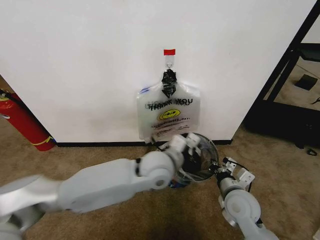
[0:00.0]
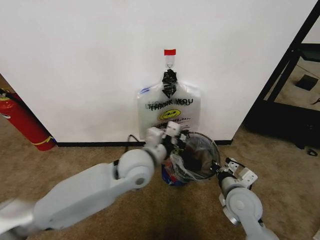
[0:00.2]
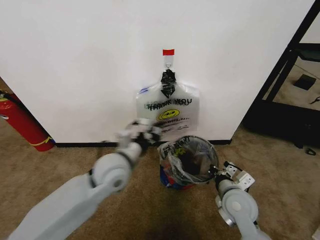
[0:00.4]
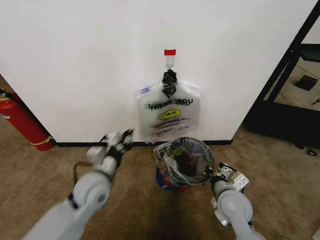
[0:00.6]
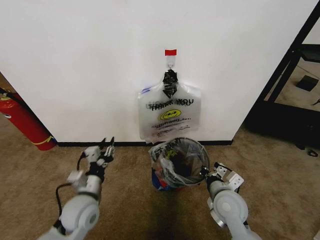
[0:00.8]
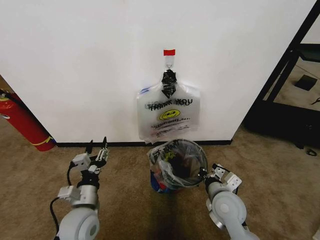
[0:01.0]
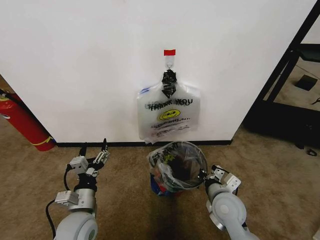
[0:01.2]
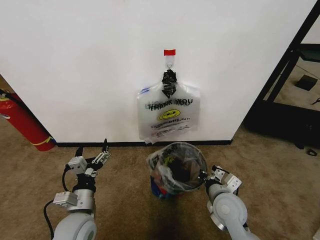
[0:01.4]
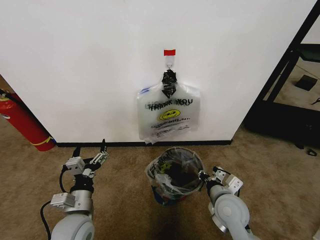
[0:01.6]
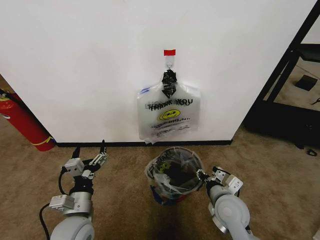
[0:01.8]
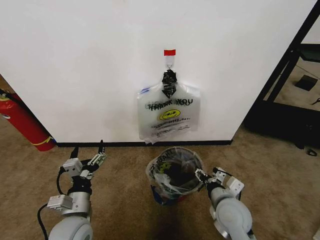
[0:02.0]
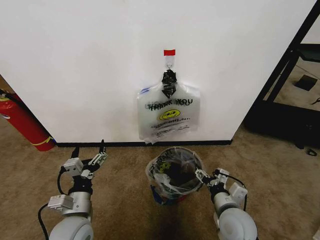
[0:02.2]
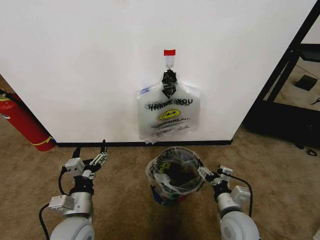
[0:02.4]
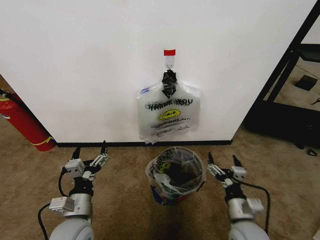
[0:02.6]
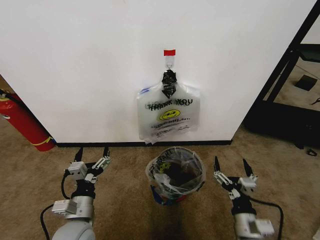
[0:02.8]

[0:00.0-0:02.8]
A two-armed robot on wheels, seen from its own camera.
Task of the whole recording: Pick up the garbage bag from the wall and place it over the trash bin.
0:00.0 to 0:01.4: The left gripper travels to the left, backward and downward by some 30 cm, and opens its fingers.
0:01.4 to 0:02.8: The right gripper travels backward by roughly 10 cm, and opens its fingers.

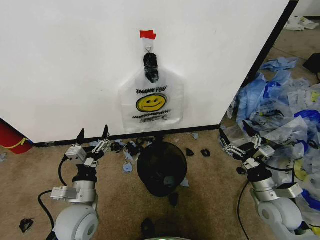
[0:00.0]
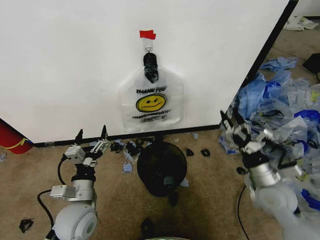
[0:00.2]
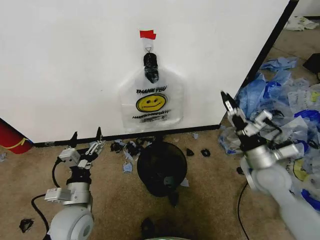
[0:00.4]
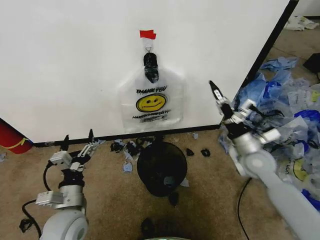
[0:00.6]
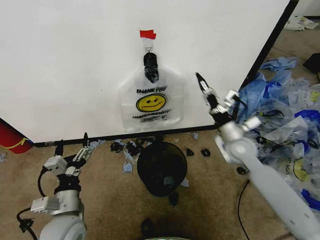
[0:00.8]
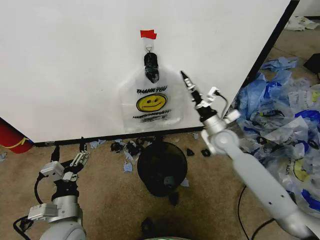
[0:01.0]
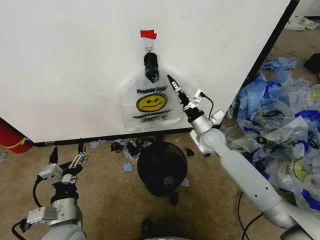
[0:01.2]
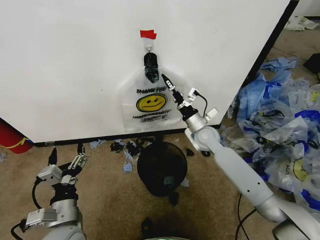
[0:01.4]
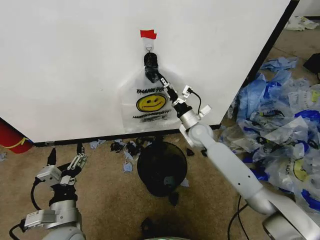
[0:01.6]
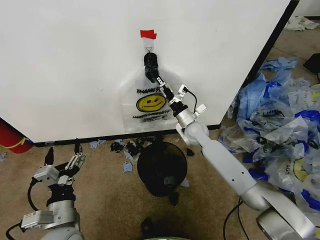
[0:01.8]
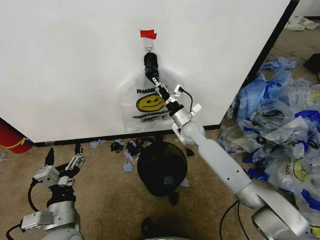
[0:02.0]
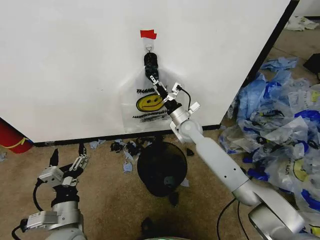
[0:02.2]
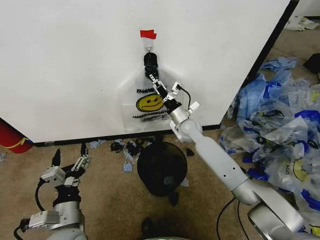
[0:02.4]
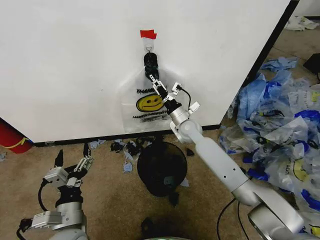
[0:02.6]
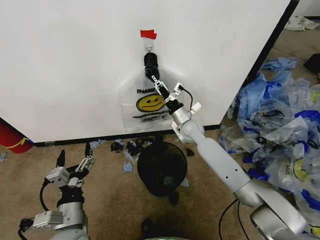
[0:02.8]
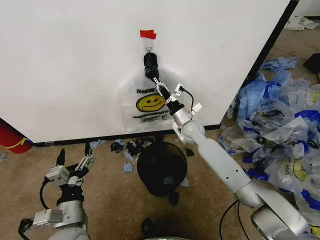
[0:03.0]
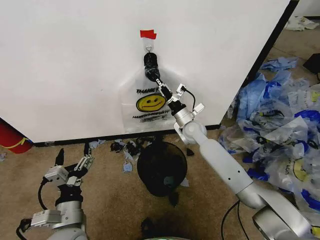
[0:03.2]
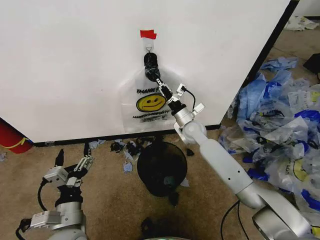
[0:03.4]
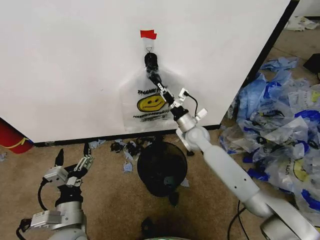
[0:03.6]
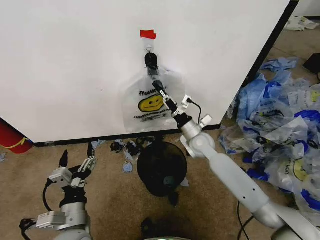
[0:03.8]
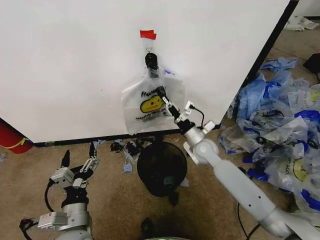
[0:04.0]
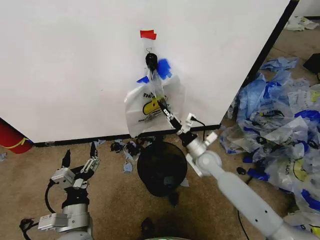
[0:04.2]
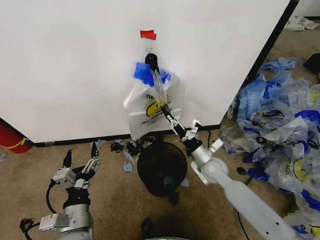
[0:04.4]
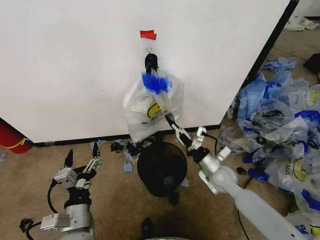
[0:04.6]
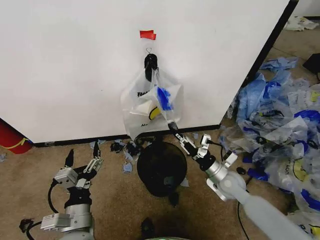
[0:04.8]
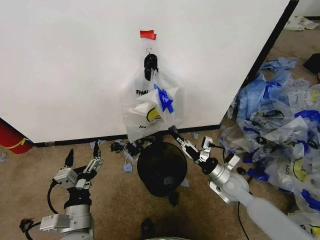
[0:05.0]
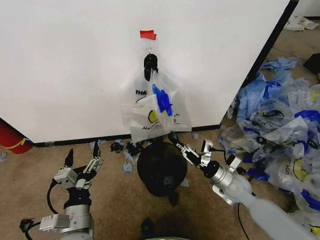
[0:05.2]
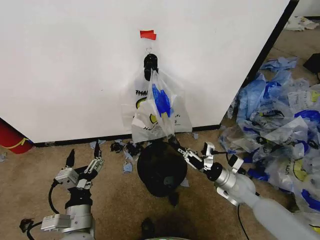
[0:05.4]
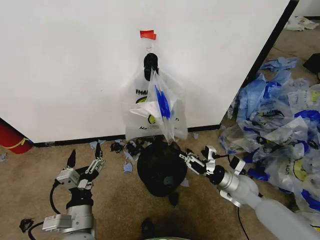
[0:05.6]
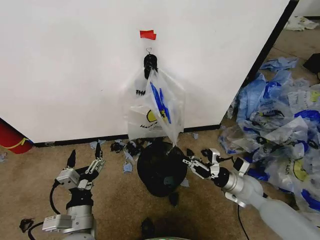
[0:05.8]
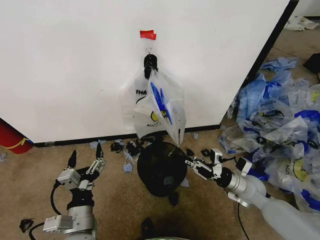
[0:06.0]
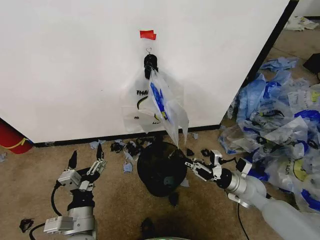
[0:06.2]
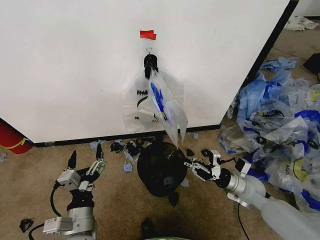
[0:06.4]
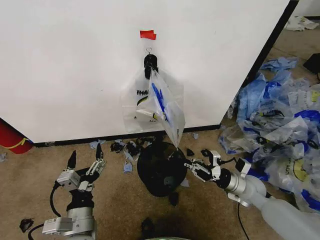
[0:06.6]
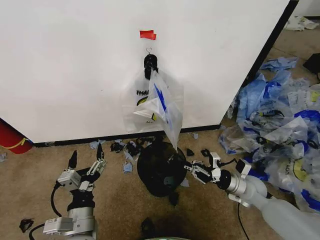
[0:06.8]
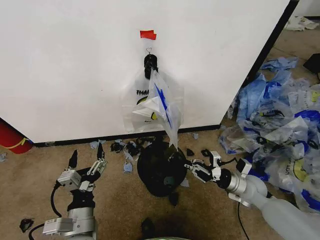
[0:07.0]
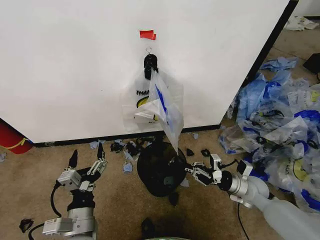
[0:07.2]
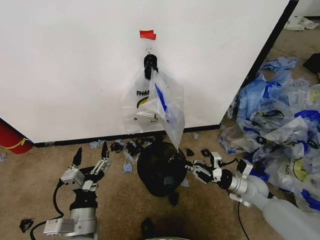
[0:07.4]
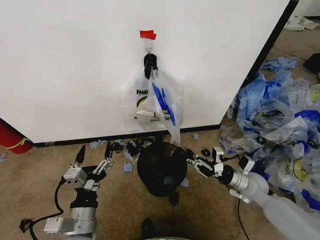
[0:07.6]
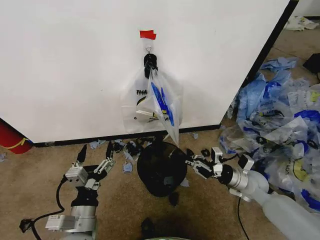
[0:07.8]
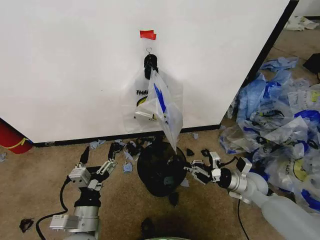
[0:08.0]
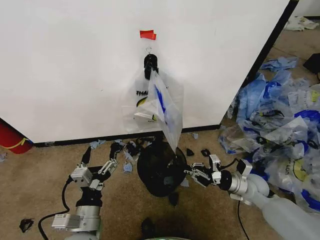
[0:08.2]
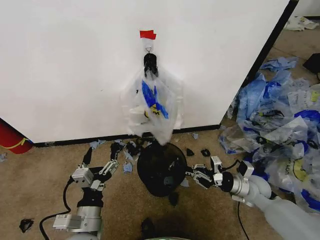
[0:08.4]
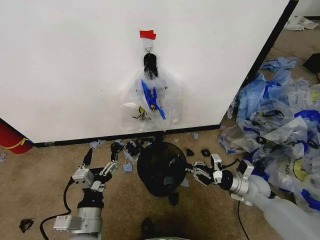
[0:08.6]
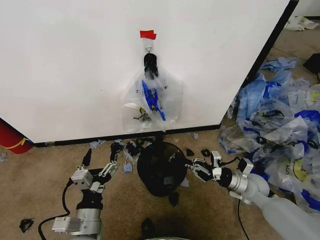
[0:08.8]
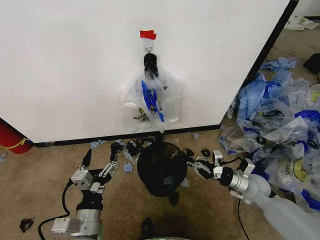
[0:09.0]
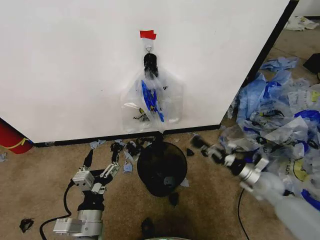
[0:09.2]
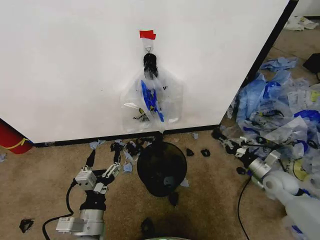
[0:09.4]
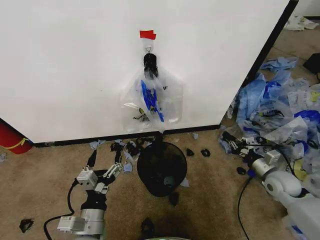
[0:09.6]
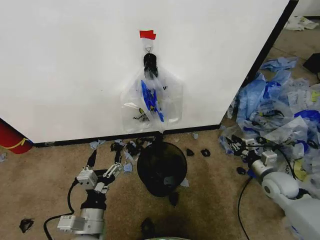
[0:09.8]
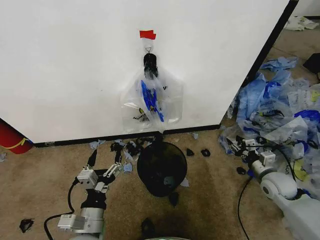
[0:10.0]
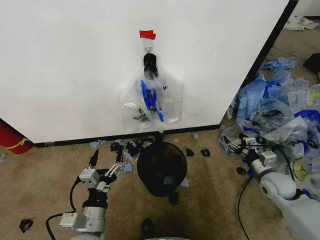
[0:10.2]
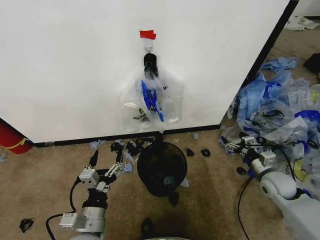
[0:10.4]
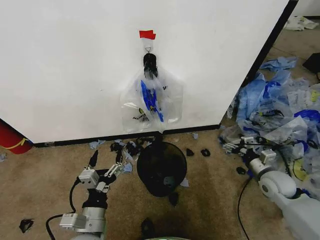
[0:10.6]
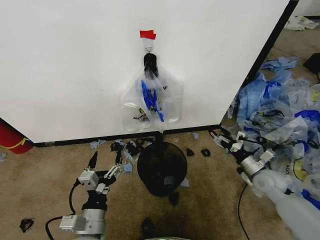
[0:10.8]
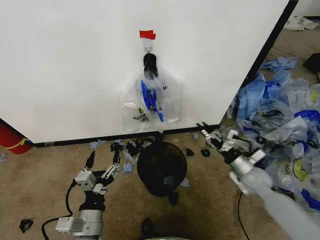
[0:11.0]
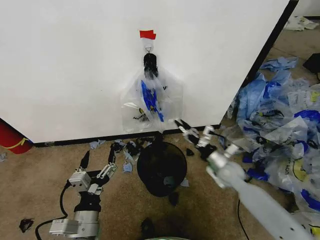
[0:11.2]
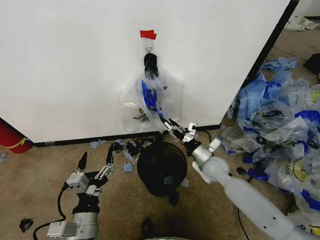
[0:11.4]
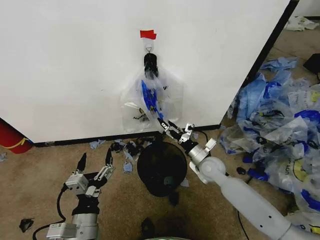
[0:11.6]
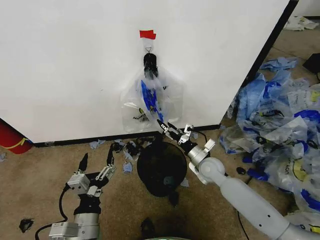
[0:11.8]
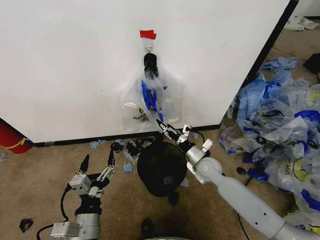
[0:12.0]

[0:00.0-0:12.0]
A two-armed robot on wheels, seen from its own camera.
Task of the whole recording: Pick up the garbage bag from the wall and place it over the trash bin.
0:01.6 to 0:03.0: The right gripper closes up.
0:03.0 to 0:04.4: The right gripper shifts about 15 cm backward, to the right and downward.
0:04.4 to 0:06.0: The right gripper heads to the right and backward, covering about 15 cm.
0:06.0 to 0:09.0: The grippers stay close to where they were, moving slightly.
0:09.0 to 0:10.4: The right gripper heads to the right, covering approximately 5 cm, and opens its fingers.
0:10.4 to 0:12.0: The right gripper heads to the left, covering about 20 cm.

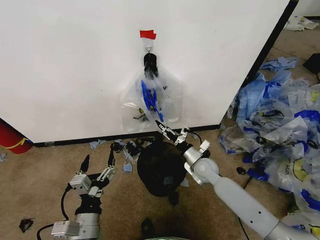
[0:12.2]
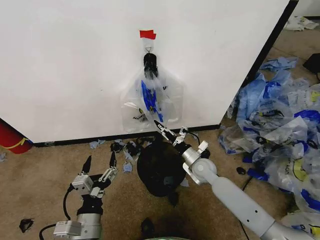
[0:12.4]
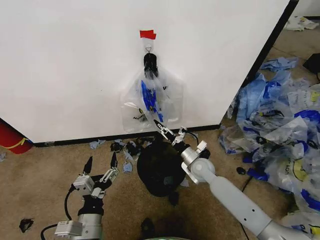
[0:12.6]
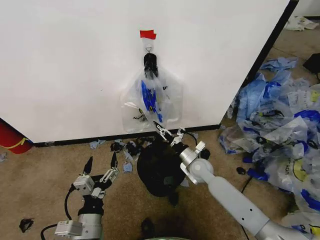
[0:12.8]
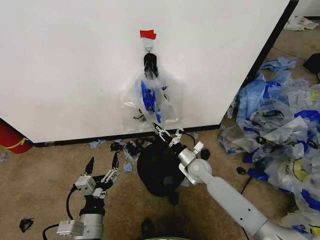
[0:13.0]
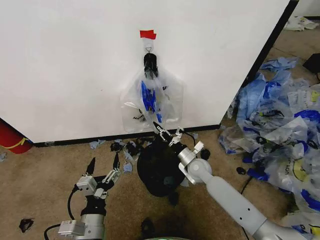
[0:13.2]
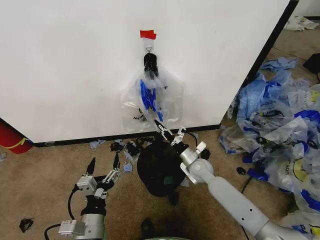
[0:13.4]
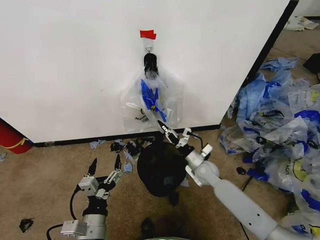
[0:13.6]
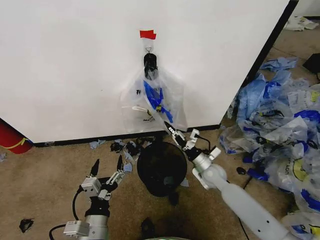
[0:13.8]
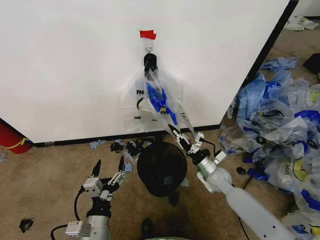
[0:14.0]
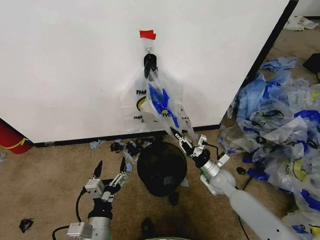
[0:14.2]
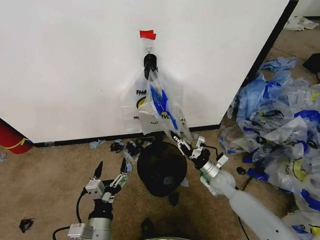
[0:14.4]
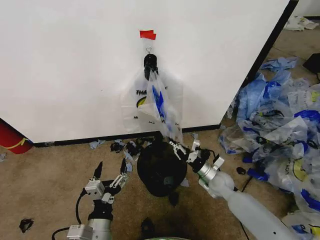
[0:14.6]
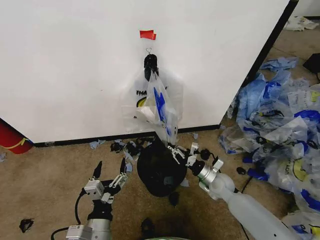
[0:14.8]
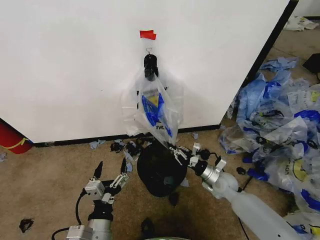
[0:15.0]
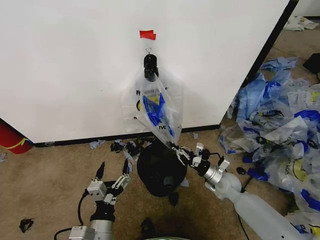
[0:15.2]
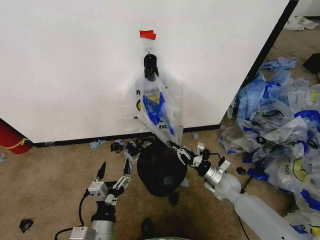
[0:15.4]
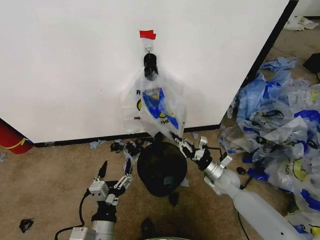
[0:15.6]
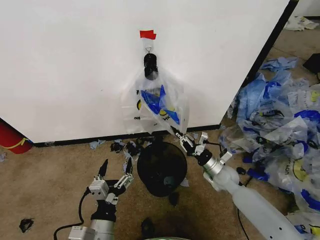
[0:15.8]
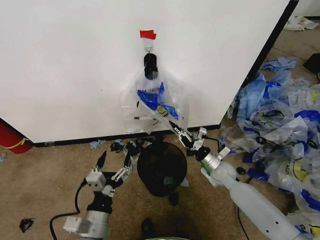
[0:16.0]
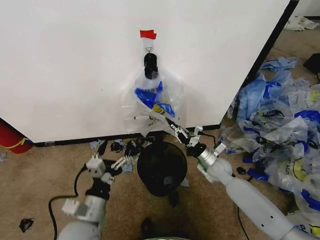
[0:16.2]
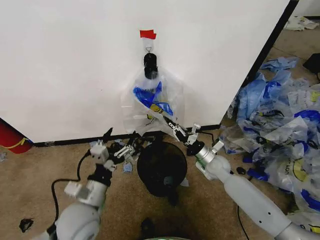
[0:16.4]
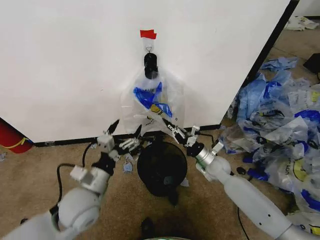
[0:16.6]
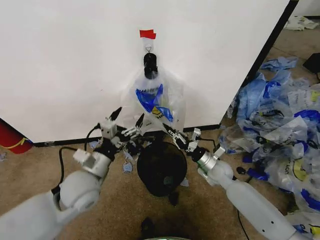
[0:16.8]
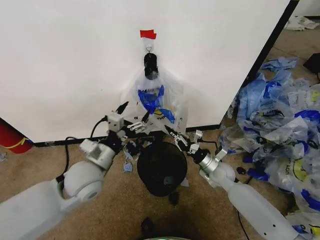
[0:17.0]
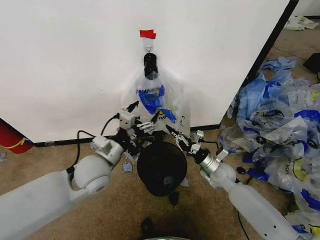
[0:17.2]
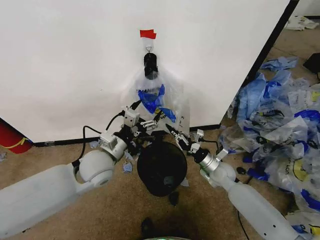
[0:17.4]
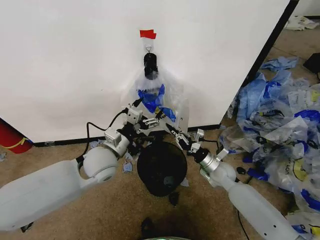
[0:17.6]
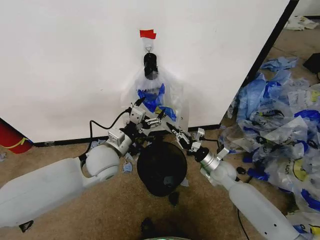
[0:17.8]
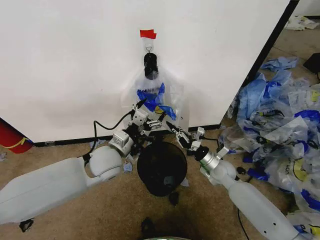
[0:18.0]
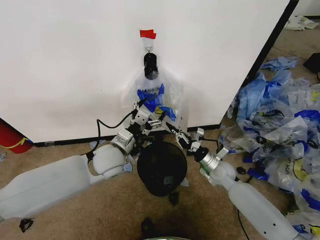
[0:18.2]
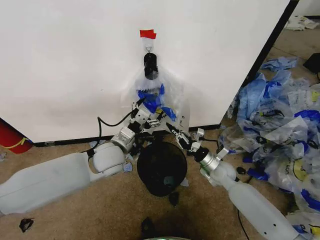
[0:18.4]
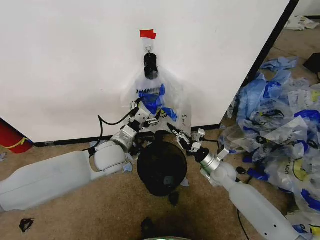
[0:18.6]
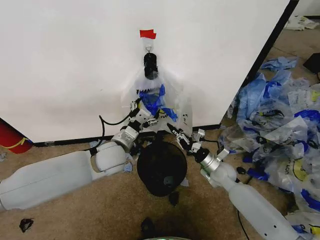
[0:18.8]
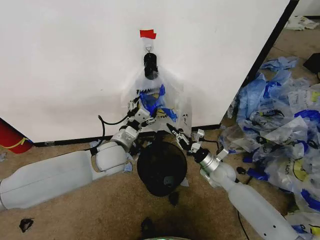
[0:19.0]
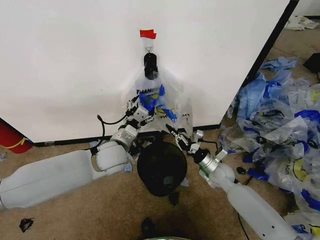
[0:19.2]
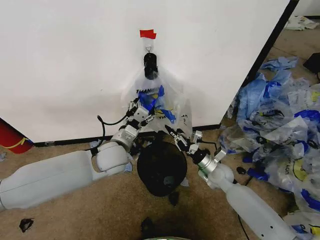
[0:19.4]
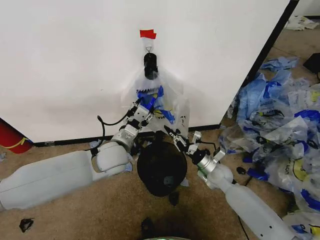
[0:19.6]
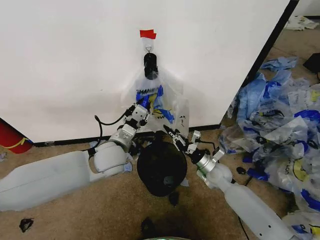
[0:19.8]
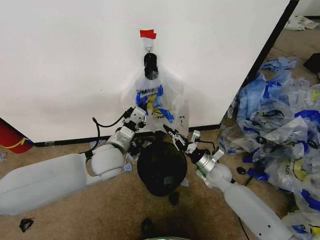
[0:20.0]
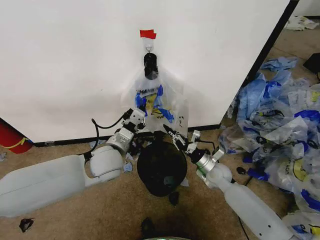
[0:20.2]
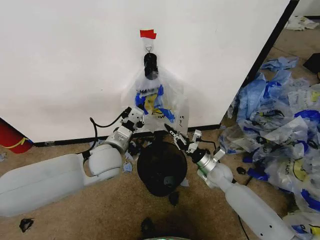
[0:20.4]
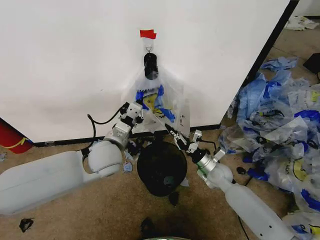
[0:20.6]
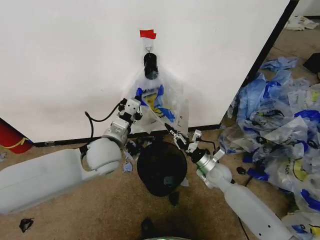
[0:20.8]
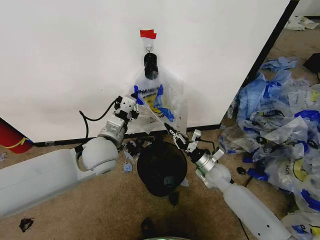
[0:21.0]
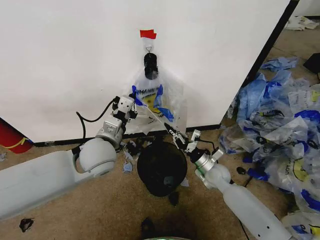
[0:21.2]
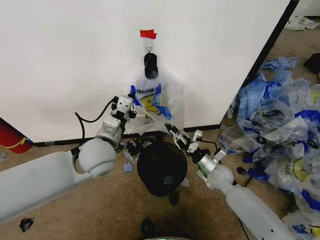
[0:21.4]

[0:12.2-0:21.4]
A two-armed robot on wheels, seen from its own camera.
Task of the whole recording: Pick up the garbage bag from the wall and place it over the trash bin.
0:12.2 to 0:13.8: The right gripper closes up.
0:13.8 to 0:15.2: The right gripper changes place by some 5 cm.
0:15.2 to 0:16.8: The left gripper moves forward and upward, about 20 cm. The right gripper changes place by about 5 cm.
0:16.8 to 0:18.4: The left gripper goes approximately 10 cm forward and to the right.
0:18.4 to 0:19.8: The left gripper closes its fingers.
0:19.8 to 0:21.4: The left gripper shifts by roughly 5 cm.
